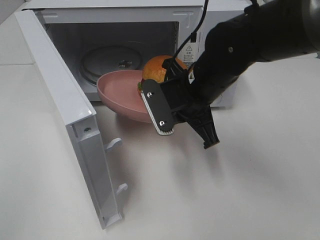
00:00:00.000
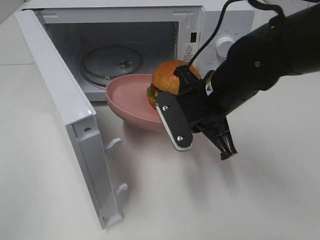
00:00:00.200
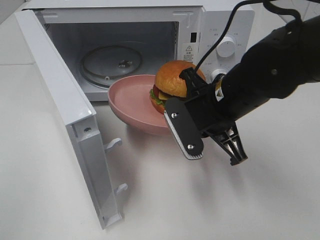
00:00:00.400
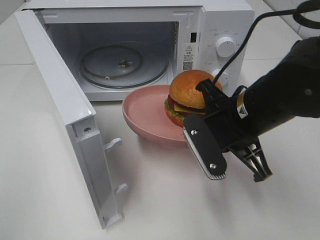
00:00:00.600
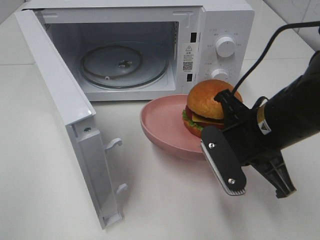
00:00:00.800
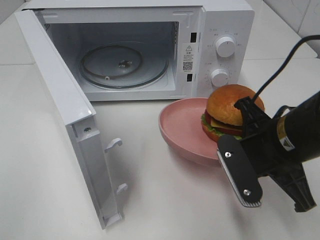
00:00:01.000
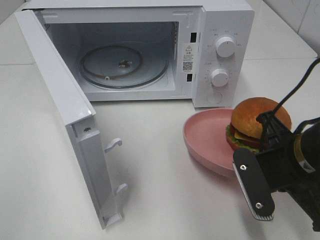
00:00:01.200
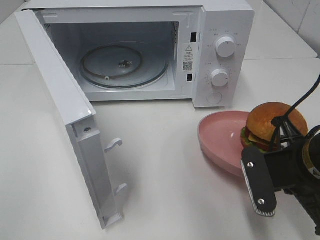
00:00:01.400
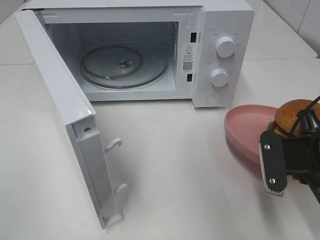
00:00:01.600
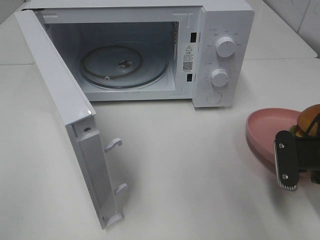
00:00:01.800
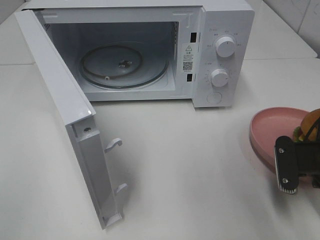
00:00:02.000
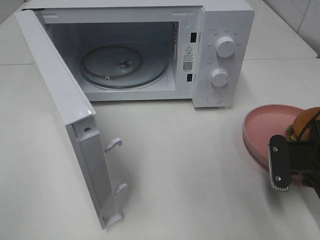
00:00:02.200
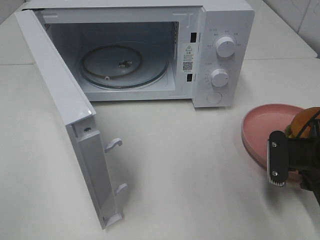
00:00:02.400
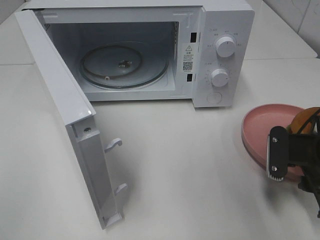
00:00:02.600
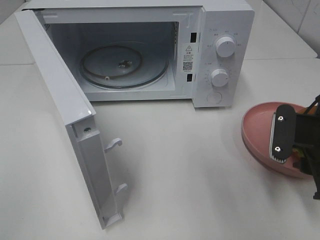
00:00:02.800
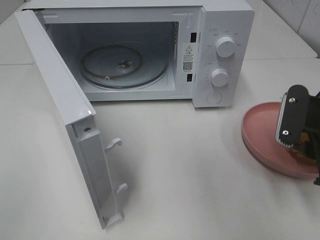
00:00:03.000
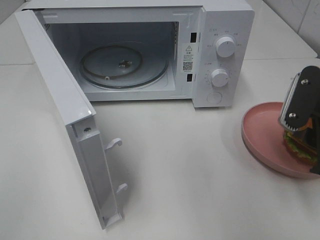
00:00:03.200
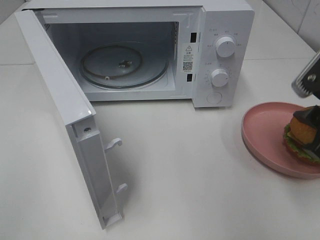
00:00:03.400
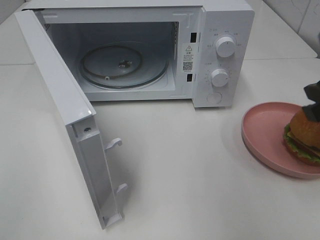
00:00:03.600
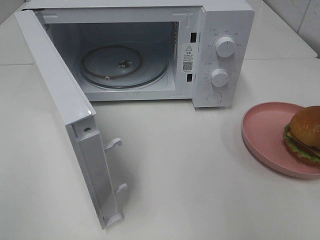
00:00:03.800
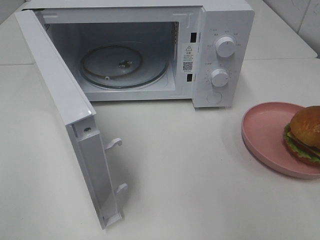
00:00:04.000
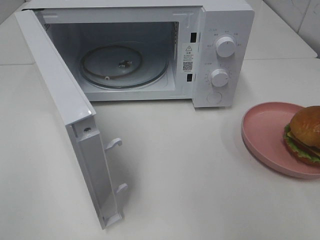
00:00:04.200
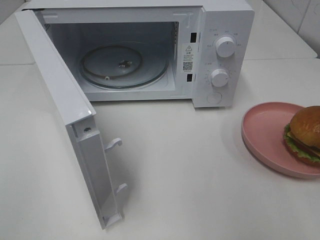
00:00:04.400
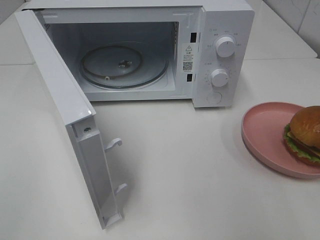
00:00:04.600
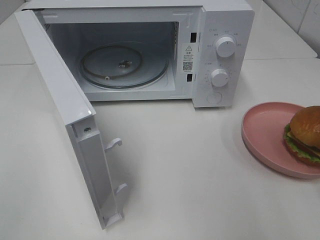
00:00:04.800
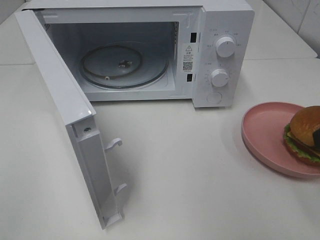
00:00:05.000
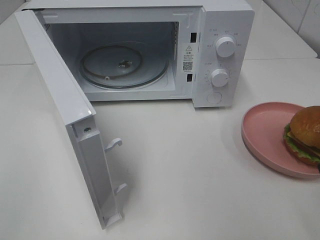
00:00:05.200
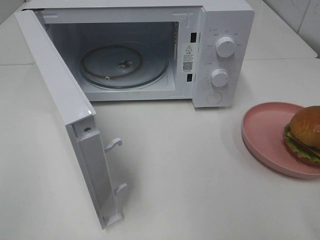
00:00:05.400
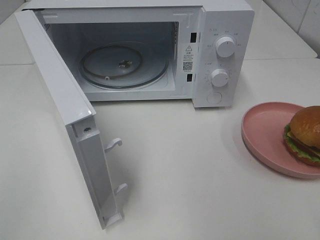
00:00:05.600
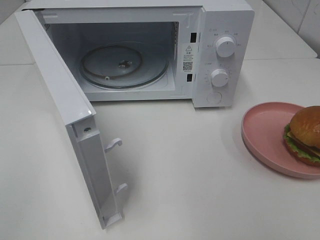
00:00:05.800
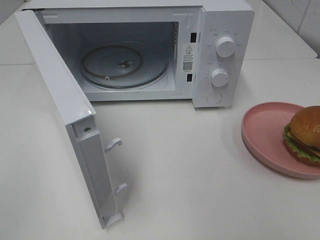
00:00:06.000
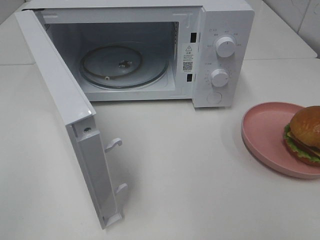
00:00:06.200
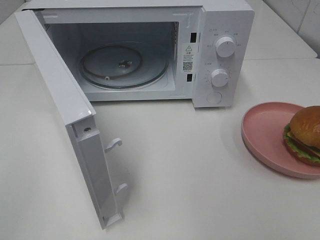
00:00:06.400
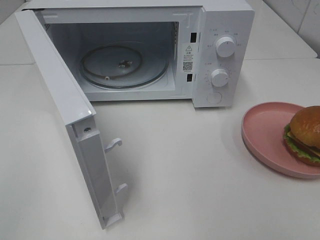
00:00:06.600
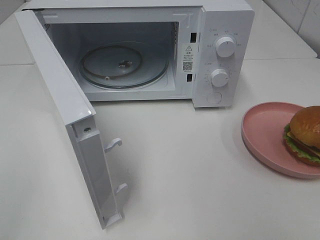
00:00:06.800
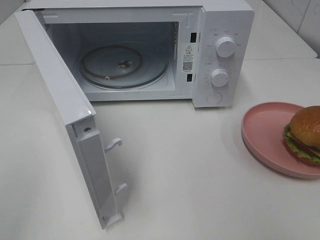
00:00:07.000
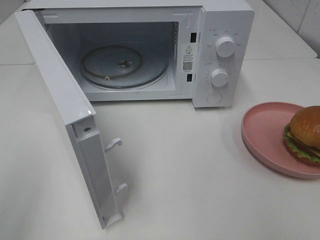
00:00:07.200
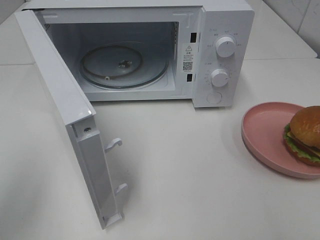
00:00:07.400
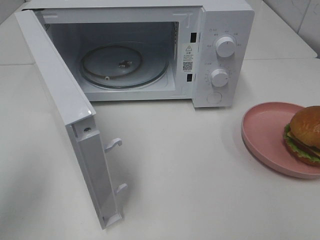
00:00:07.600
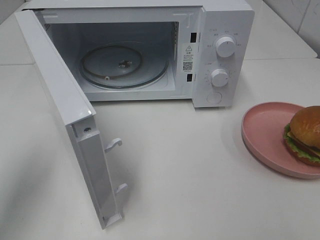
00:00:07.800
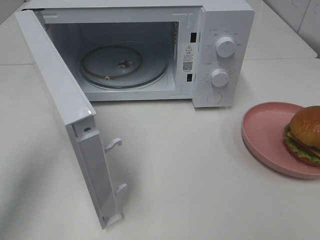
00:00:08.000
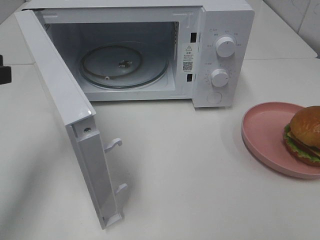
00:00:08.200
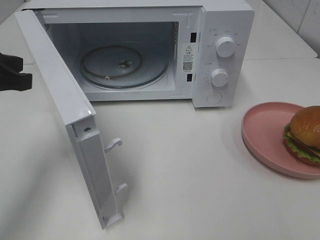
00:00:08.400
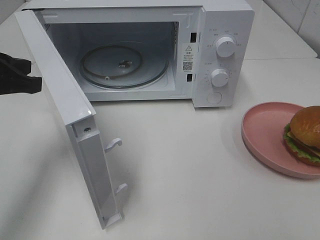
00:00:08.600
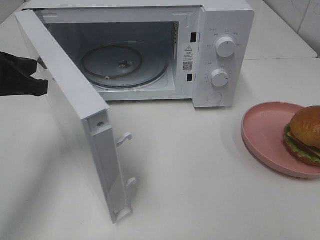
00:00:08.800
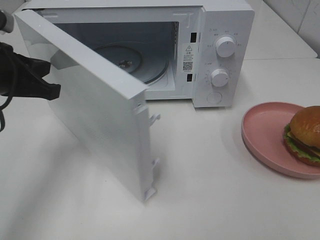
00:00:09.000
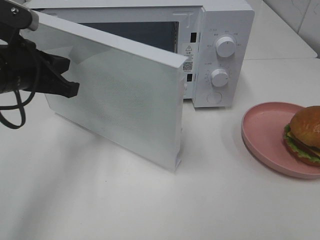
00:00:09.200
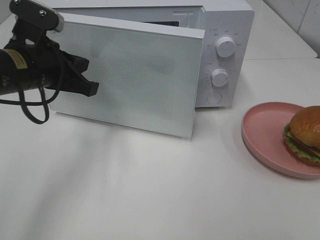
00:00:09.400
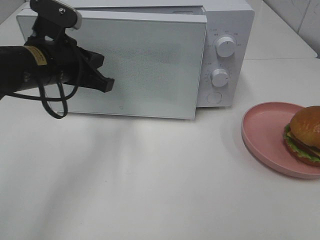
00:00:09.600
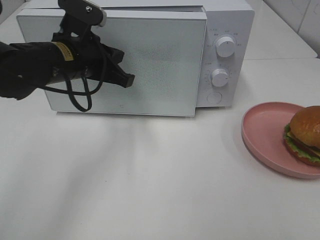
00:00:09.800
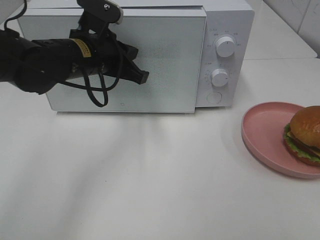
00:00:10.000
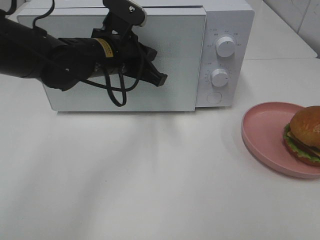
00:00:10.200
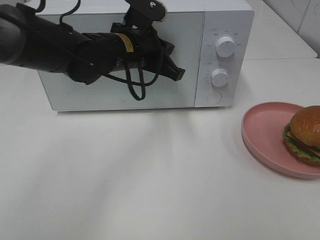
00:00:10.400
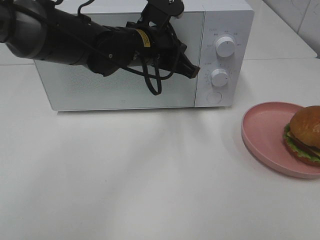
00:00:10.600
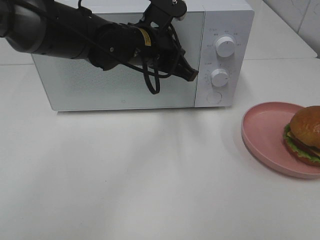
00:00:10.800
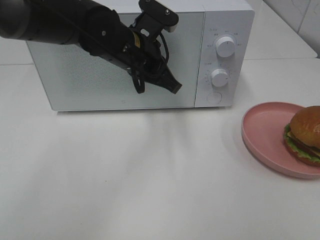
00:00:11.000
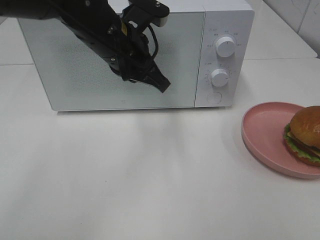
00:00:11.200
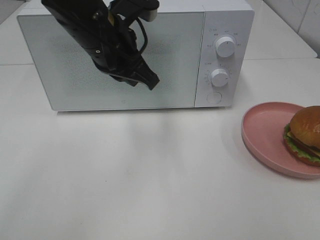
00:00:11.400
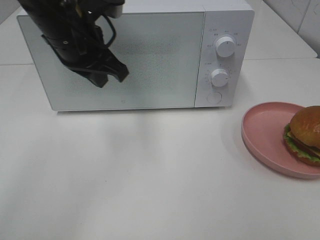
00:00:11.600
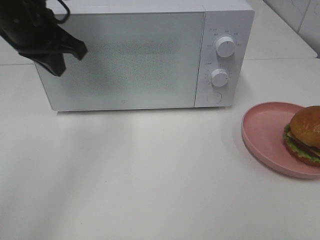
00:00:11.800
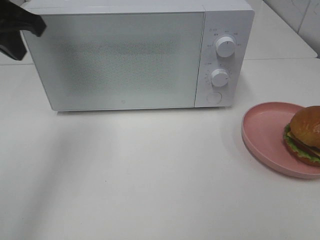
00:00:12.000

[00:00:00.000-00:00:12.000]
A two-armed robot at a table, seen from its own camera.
Task of the whole recording: Heat the burger.
Step, 00:00:00.000 to 00:00:02.400: Right hand: place the plate on the table.
Step, 00:00:02.600 to 00:00:10.800: Left hand: close the microwave door.
00:00:00.000 to 00:00:01.600: The right gripper shifts roughly 20 cm to the right and backward.
00:00:01.600 to 00:00:03.000: The right gripper opens up.
00:00:03.000 to 00:00:04.400: The right gripper travels upward and backward by some 10 cm.
00:00:06.000 to 00:00:07.600: The left gripper travels forward by about 15 cm.
00:00:07.600 to 00:00:09.000: The left gripper heads forward, downward and to the right, covering approximately 15 cm.
00:00:09.000 to 00:00:10.400: The left gripper moves to the right and forward, about 20 cm.
00:00:10.400 to 00:00:12.000: The left gripper travels to the left and upward by about 20 cm.

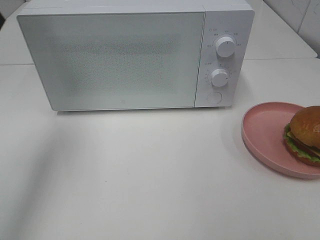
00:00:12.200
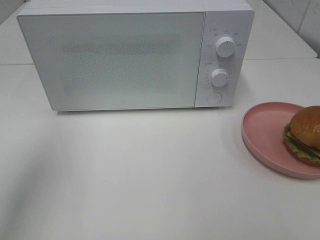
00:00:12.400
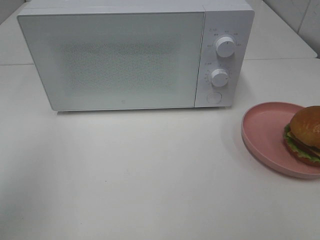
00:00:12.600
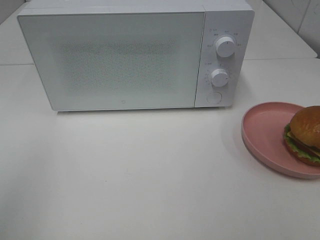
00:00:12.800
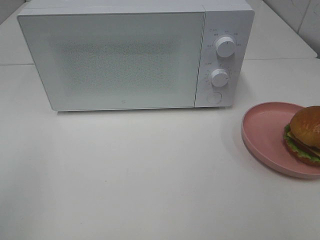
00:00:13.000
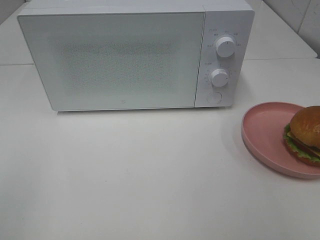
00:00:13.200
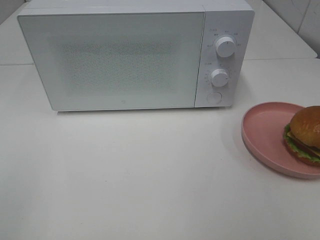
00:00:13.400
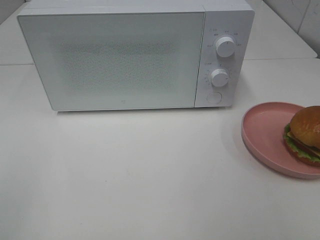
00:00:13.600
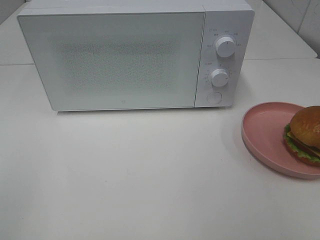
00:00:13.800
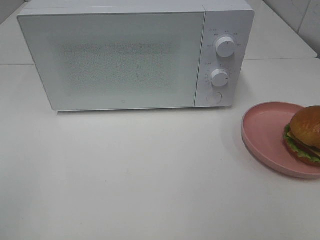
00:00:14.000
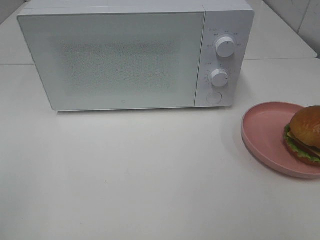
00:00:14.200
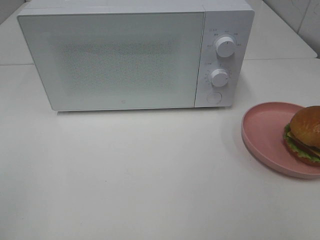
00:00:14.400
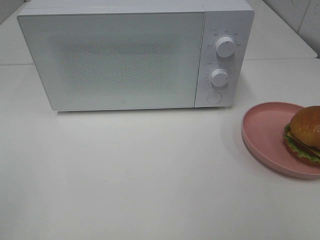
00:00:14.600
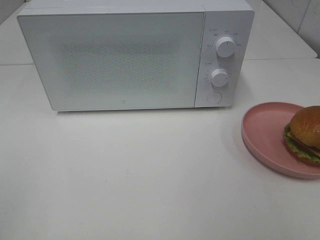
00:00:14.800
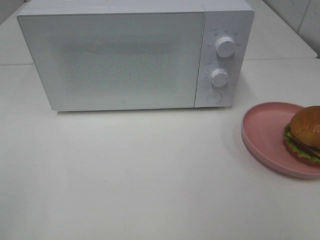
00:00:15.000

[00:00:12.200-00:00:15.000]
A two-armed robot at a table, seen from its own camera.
Task of the whole recording: Heat the burger.
00:00:12.200 to 00:00:13.600: The left gripper travels backward by some 25 cm.

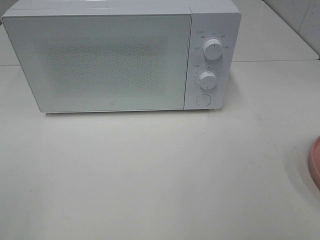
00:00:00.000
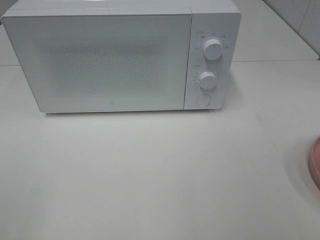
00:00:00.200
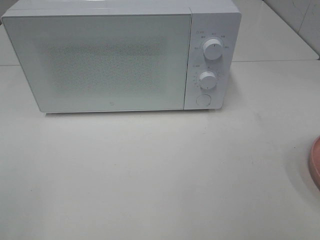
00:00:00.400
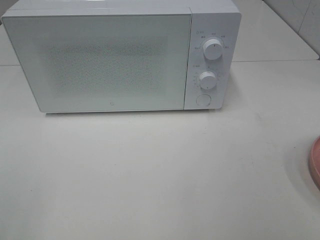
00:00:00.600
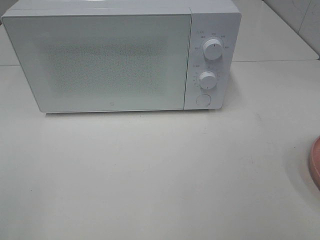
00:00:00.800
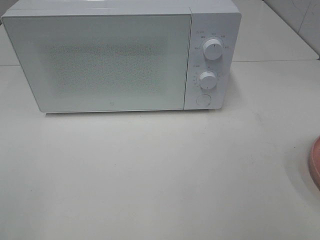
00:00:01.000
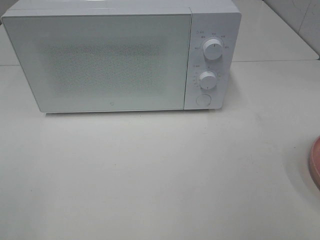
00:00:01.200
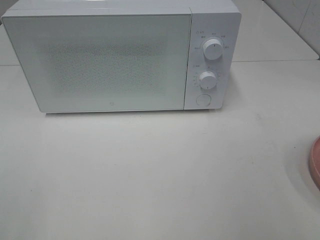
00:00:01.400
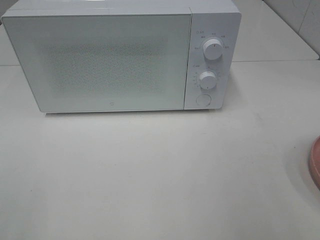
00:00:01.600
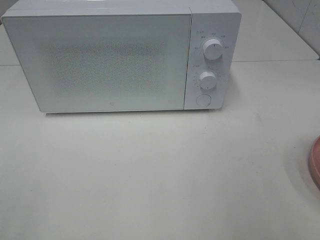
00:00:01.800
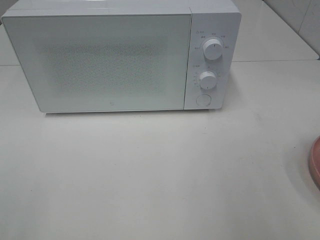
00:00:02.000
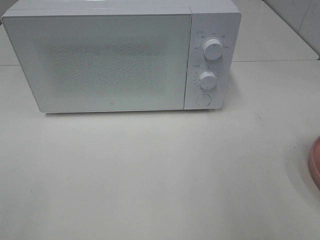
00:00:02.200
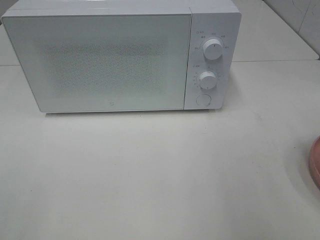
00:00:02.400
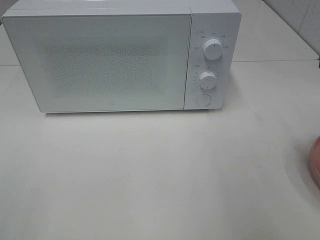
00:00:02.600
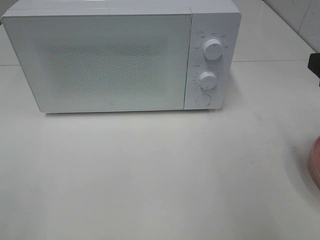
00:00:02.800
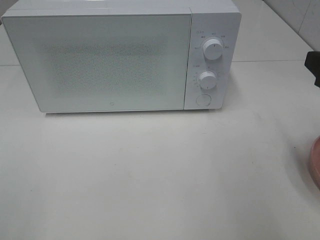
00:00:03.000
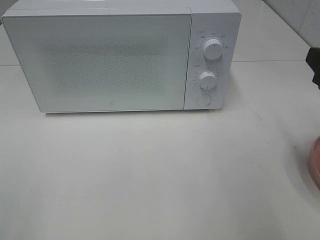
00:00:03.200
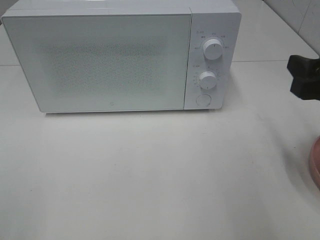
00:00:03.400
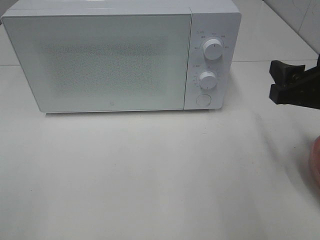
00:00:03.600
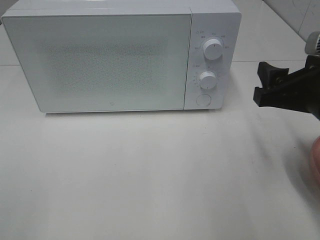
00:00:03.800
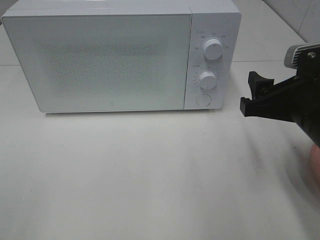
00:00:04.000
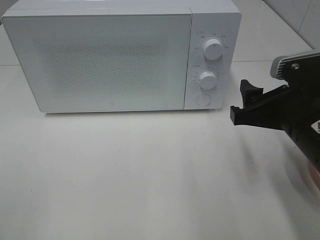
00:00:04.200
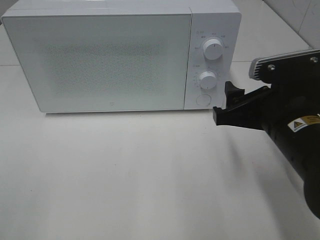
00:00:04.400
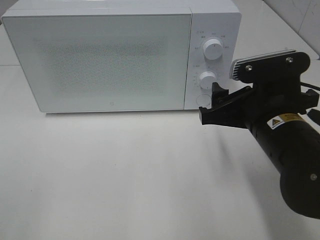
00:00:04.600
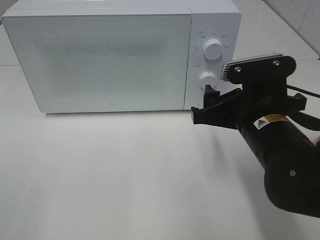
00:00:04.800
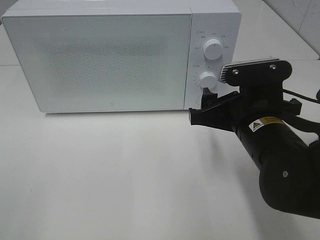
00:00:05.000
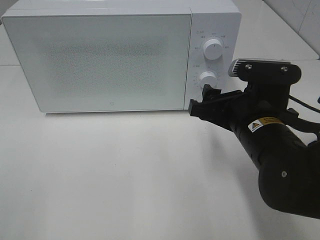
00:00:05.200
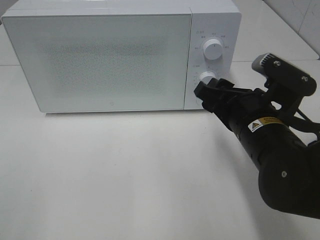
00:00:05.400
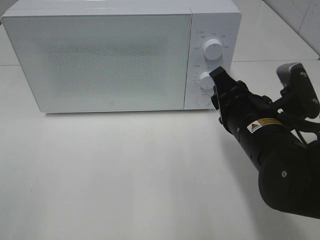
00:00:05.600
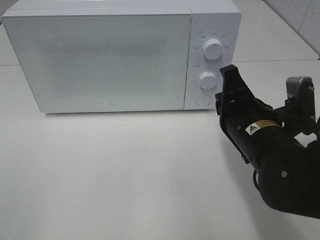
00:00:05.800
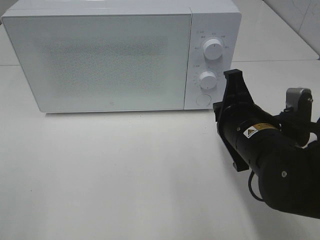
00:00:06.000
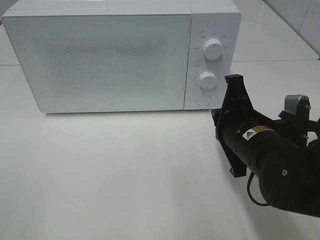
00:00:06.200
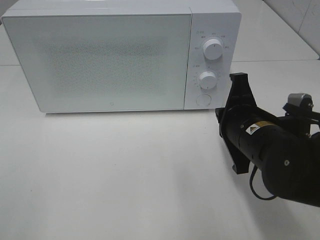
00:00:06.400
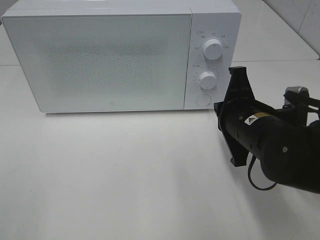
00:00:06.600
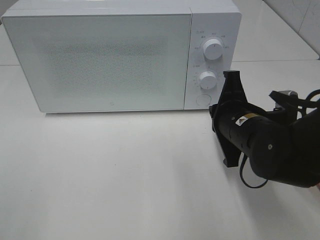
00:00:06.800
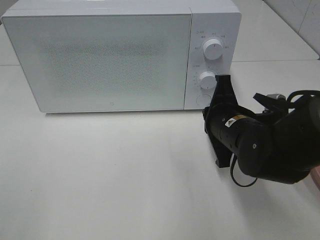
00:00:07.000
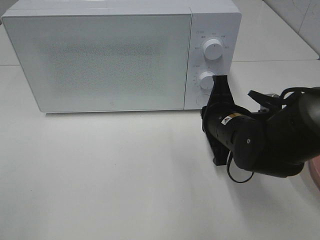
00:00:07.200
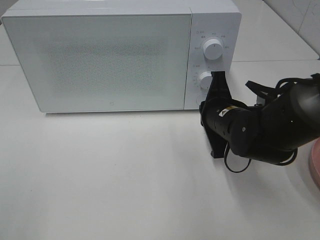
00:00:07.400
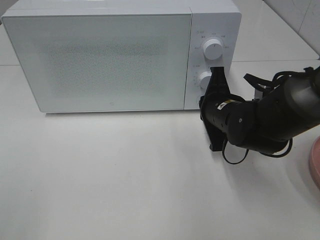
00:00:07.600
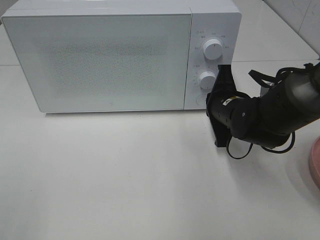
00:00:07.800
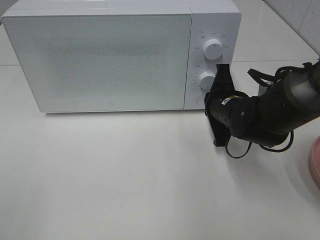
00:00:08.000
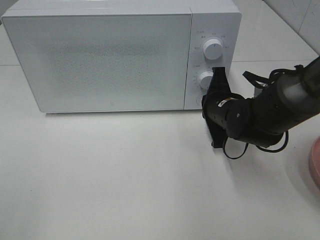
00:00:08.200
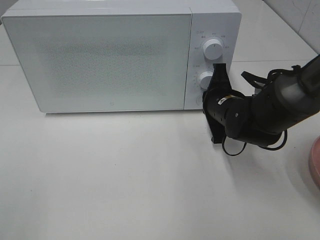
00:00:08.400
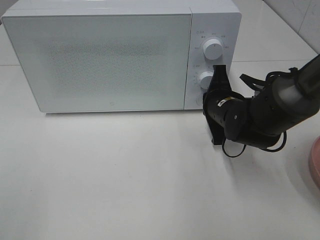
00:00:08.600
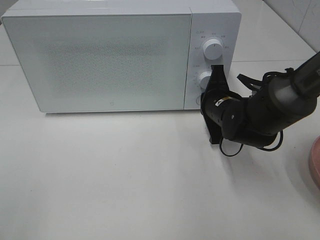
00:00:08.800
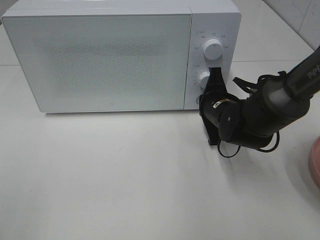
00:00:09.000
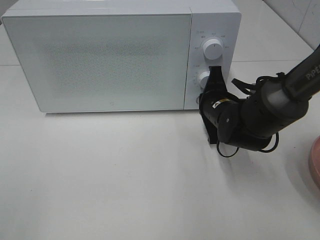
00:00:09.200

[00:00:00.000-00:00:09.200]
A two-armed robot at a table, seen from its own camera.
Task of the whole recording: Heat the burger.
00:00:01.600 to 00:00:03.000: The right gripper shifts approximately 10 cm forward.
00:00:03.000 to 00:00:04.600: The right gripper travels to the left and downward by some 15 cm.
00:00:04.600 to 00:00:06.200: The right gripper closes.
00:00:06.200 to 00:00:07.600: The right gripper is displaced forward by some 10 cm.
00:00:07.600 to 00:00:09.200: The grippers make only small movements.
